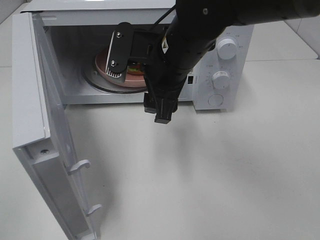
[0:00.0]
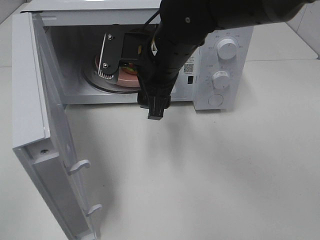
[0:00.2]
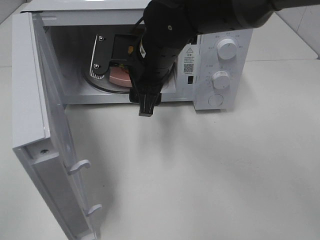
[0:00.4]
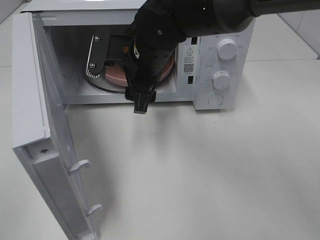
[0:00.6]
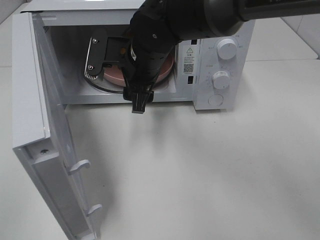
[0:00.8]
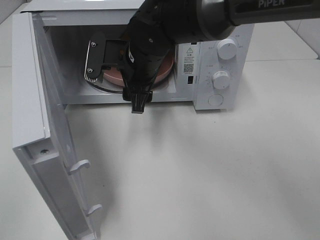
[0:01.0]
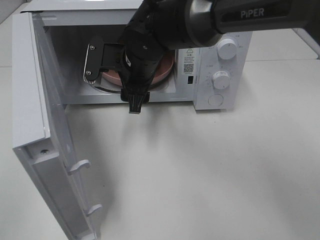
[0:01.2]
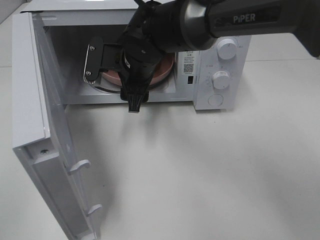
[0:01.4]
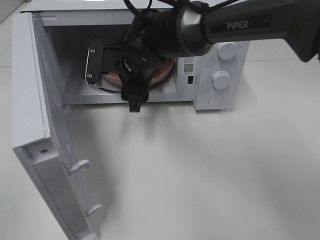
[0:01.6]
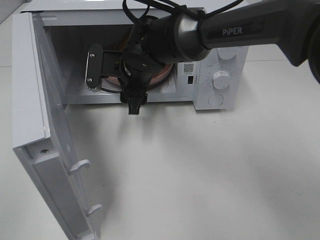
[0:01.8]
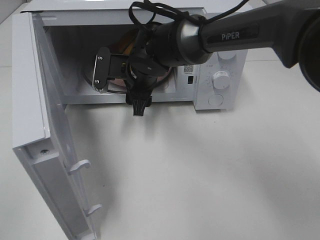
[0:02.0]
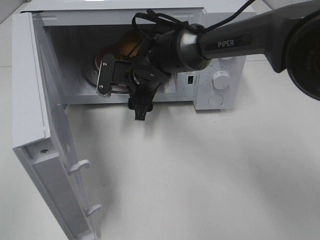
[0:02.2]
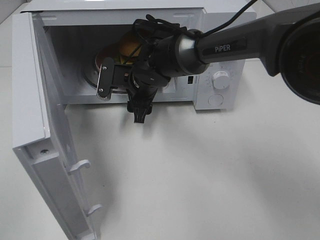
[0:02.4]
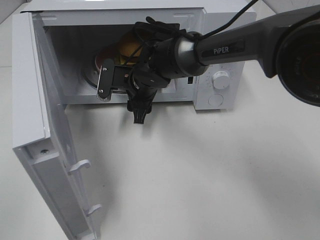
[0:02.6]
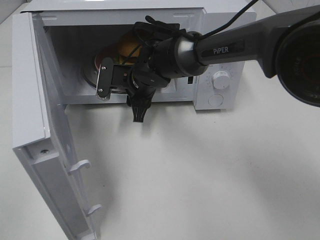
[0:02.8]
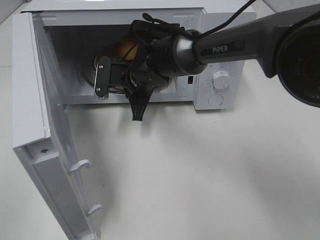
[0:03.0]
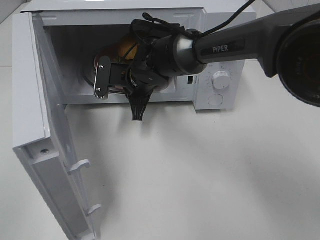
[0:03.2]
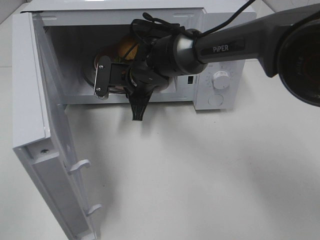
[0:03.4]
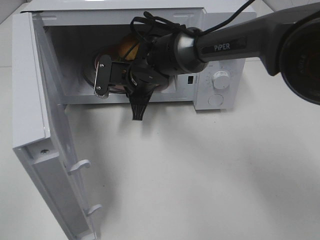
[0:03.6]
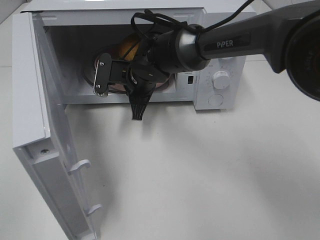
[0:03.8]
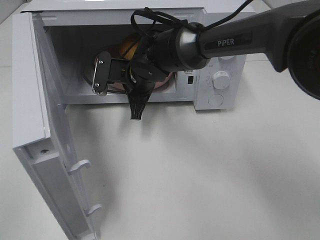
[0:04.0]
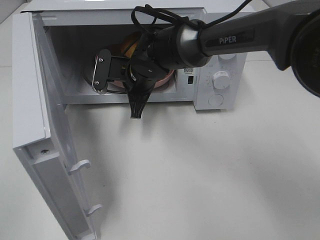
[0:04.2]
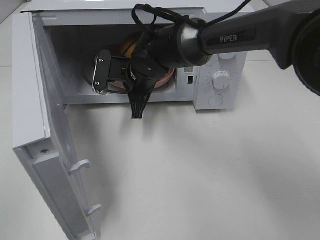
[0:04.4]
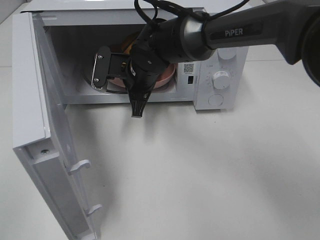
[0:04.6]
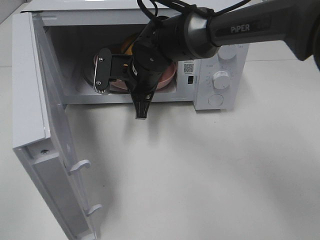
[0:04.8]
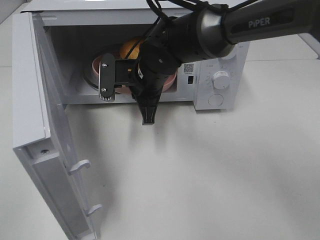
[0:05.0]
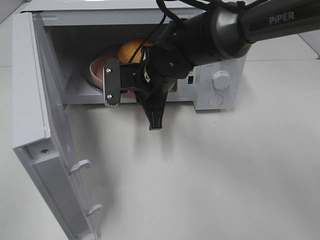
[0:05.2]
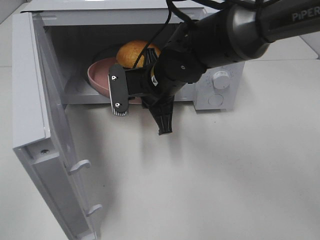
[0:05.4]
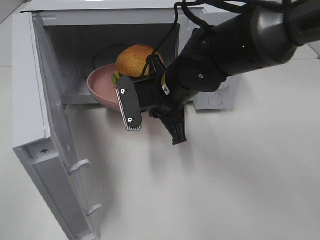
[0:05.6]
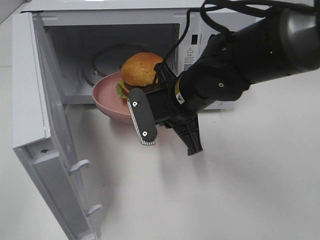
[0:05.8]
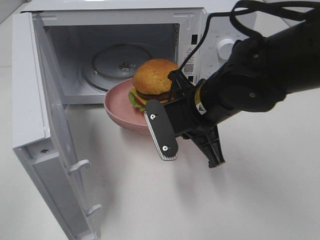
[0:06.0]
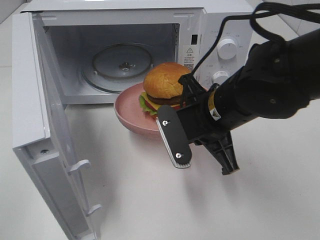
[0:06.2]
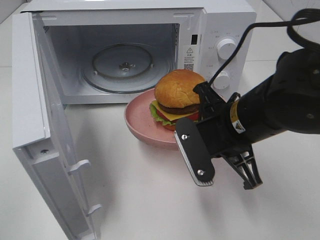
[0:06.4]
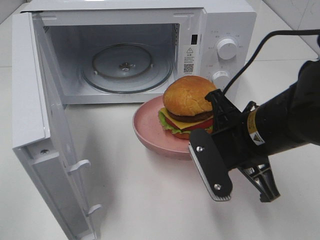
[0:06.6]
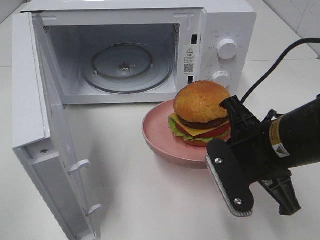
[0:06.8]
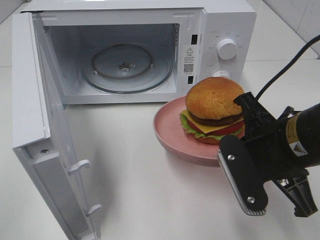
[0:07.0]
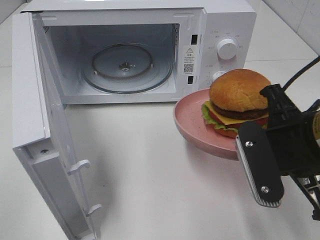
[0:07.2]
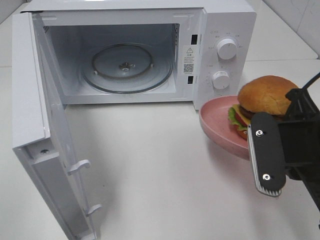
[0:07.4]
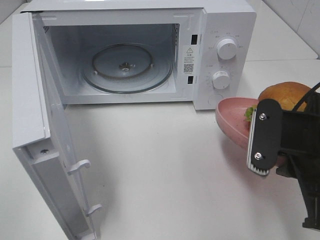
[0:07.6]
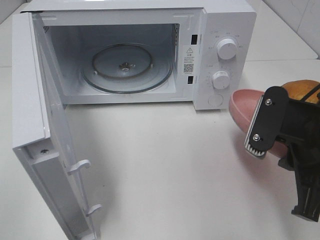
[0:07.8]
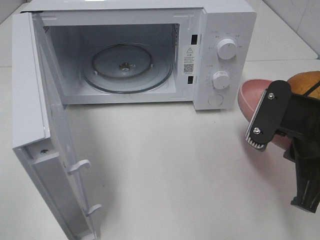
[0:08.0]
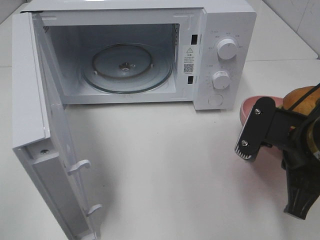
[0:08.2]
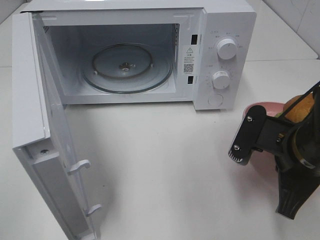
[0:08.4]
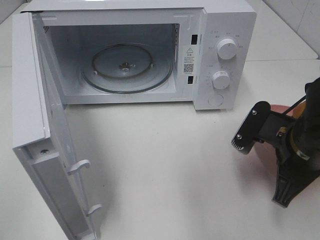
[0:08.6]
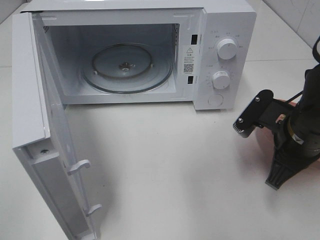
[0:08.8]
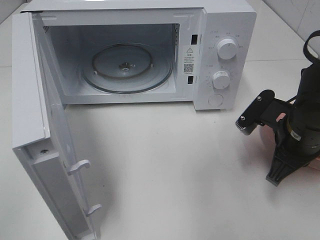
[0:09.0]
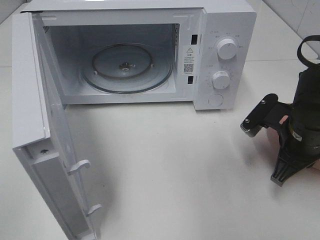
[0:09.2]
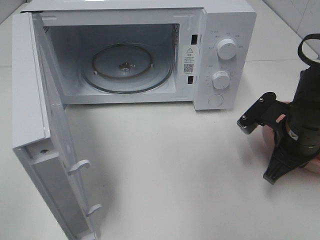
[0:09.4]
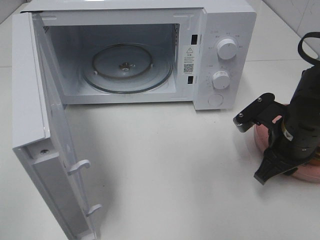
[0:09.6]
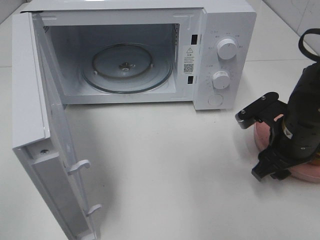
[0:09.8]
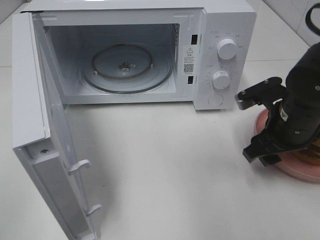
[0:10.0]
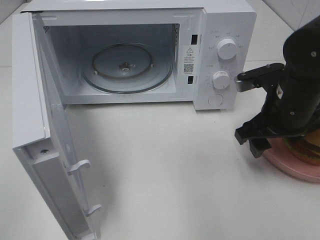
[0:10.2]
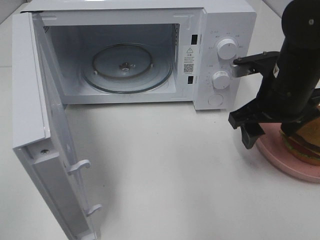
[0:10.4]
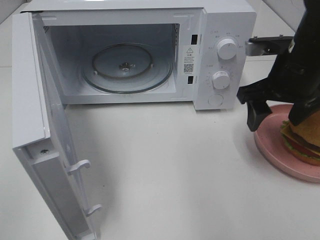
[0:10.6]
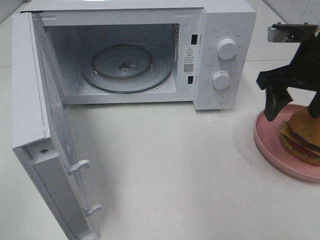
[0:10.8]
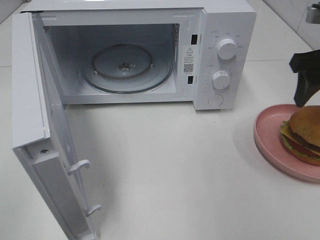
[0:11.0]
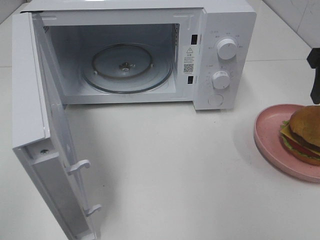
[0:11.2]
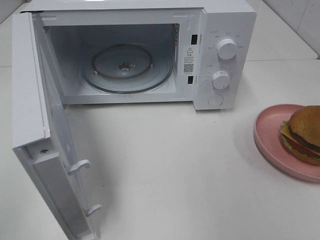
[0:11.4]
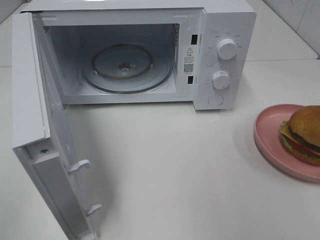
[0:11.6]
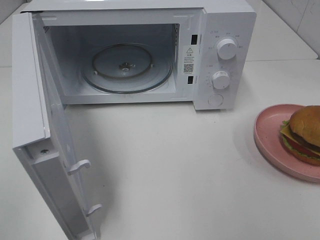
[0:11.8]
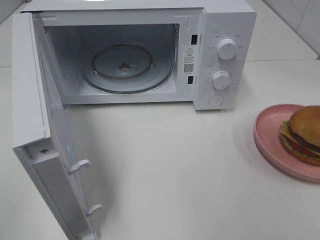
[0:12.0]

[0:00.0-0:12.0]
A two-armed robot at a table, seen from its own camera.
Task of the whole recording: Heat the burger.
Step, 0:00.0 to 0:03.8: Right hand: grab the plate with the hamburger.
Step, 0:04.0 to 0:09.6: Right hand: place the plate on the table.
0:00.0 to 0:01.6: The right gripper heads forward, to the left and downward, covering some 10 cm.
0:01.6 to 0:03.0: The right gripper shifts roughly 5 cm downward, and closes its fingers.
0:03.0 to 0:04.4: There are only small adjustments of the grippers.
0:04.4 to 0:06.0: The right gripper heads backward and to the right, covering approximately 15 cm.
0:06.0 to 0:07.6: The right gripper is displaced to the right and backward by approximately 15 cm.
0:07.6 to 0:09.0: The right gripper shifts about 10 cm forward and downward.
0:09.0 to 0:10.4: The right gripper moves upward, approximately 5 cm, and opens up.
0:10.4 to 0:12.0: The right gripper shifts some 25 cm backward, to the right and upward.

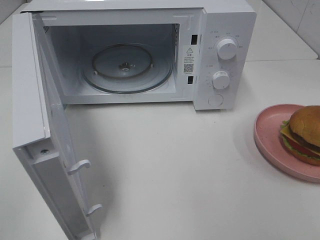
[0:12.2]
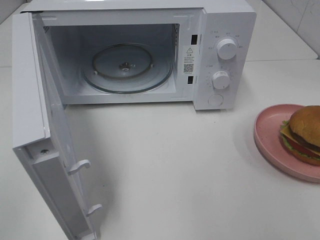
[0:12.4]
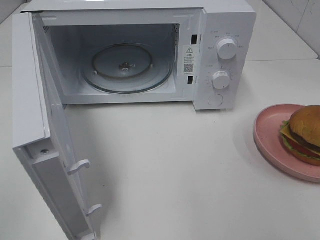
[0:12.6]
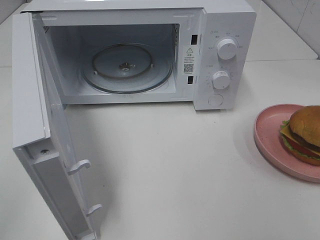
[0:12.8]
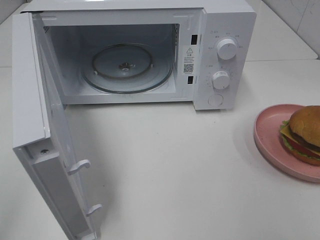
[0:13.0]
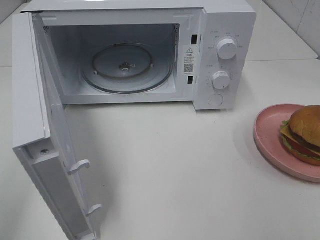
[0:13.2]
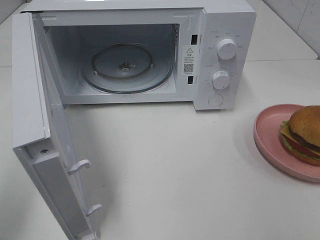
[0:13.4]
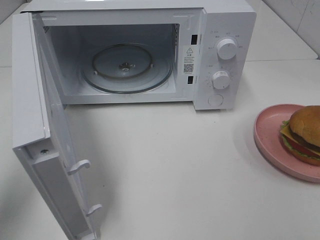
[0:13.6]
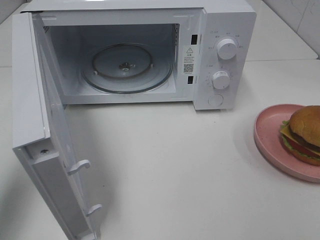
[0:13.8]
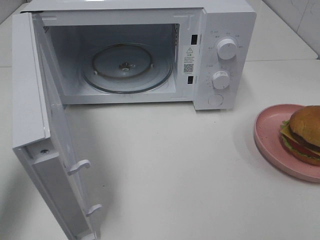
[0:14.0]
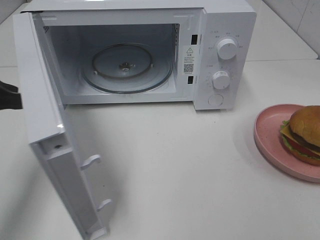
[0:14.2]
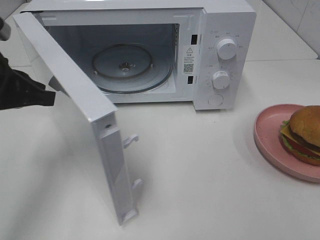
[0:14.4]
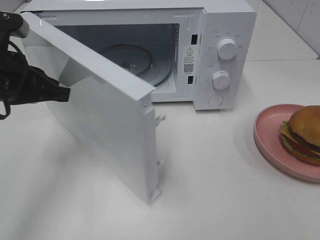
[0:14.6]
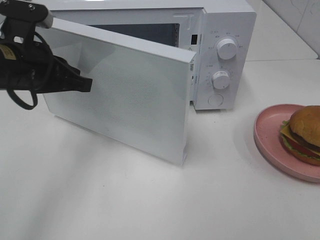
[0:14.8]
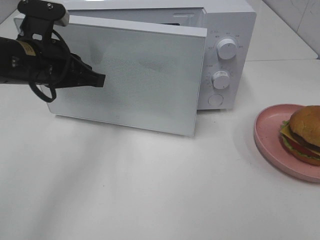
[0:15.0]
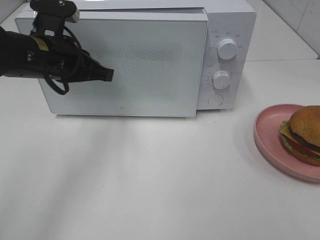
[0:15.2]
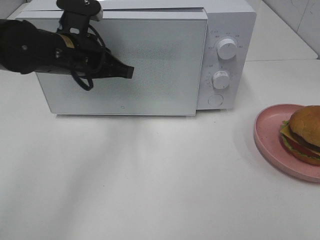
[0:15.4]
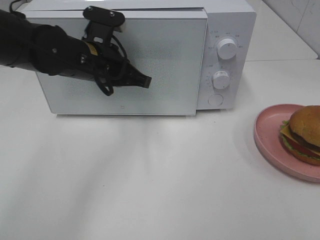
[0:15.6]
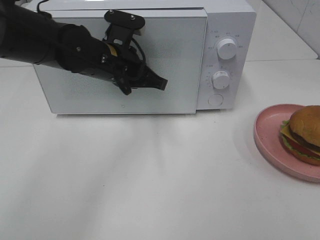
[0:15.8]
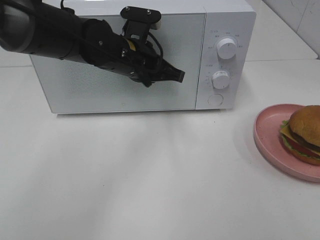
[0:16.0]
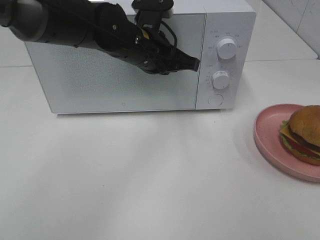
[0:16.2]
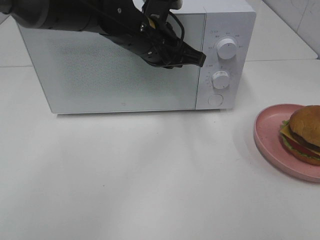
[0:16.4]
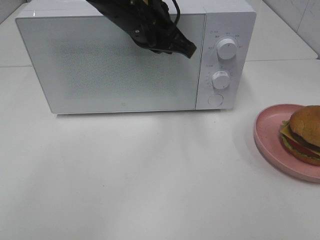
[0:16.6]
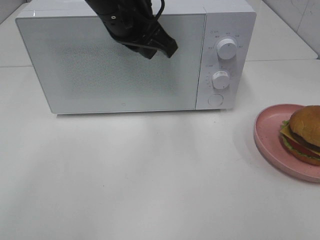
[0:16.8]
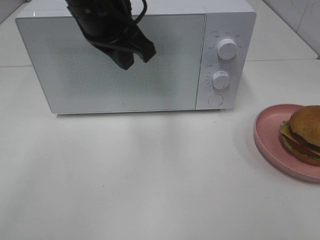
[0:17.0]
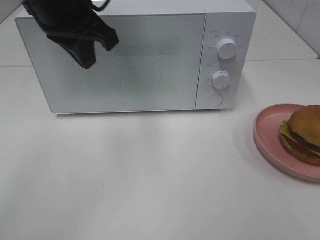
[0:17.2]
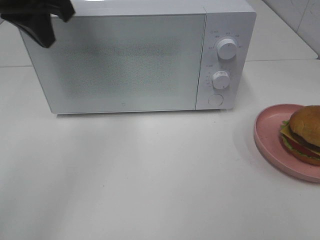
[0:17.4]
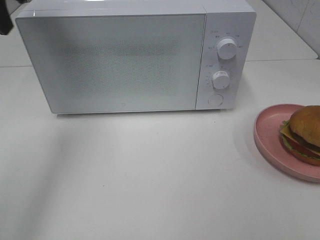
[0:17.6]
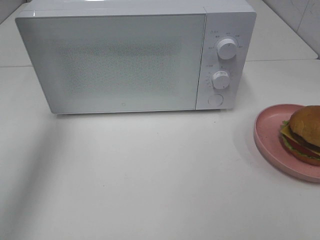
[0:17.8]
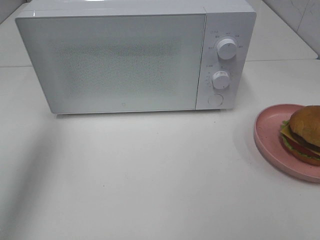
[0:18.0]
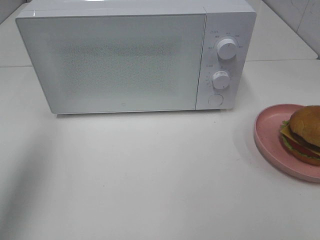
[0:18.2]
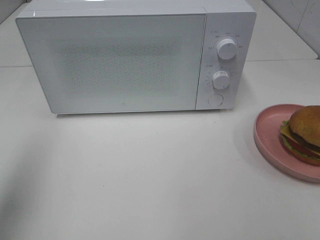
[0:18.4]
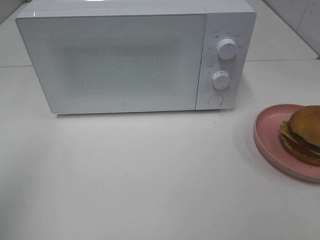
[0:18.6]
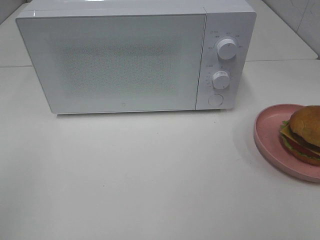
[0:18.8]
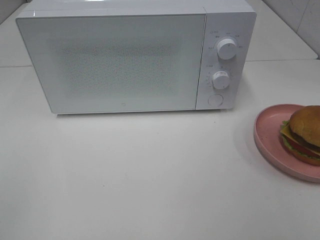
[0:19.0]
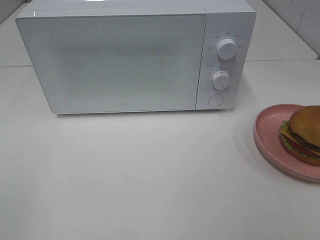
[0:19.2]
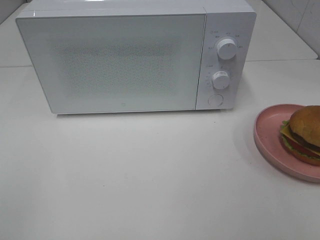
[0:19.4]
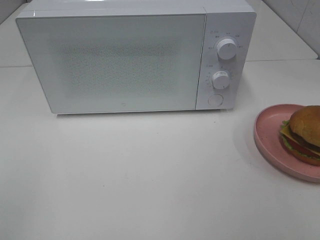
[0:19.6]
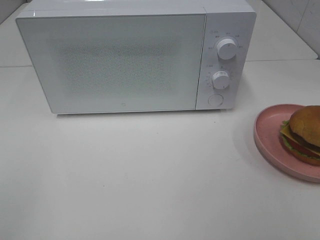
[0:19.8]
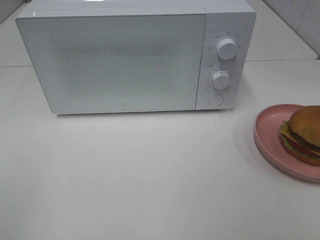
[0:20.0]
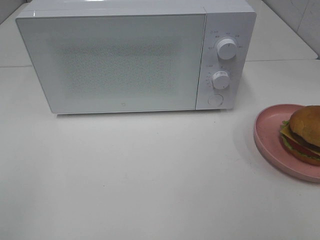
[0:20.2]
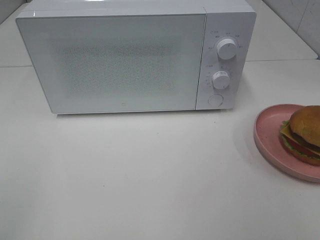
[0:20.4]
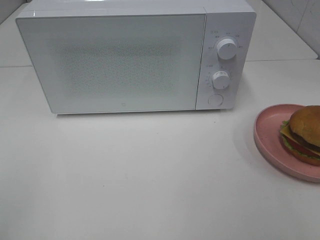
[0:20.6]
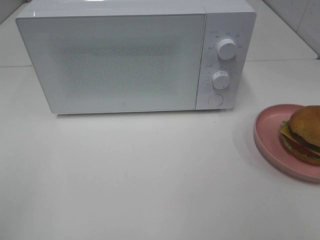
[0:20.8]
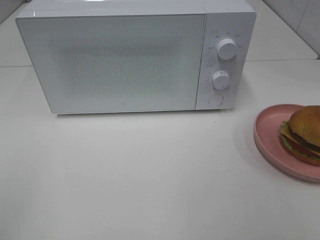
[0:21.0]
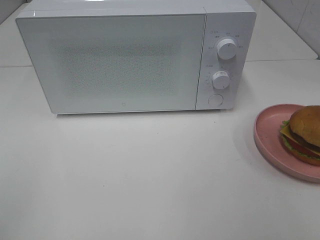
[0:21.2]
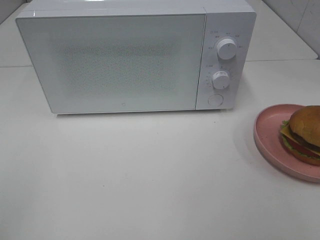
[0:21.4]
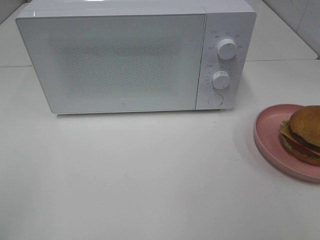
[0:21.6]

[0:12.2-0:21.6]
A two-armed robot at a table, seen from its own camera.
Task of the whole recording: Heat the burger.
Step, 0:12.2 to 0:16.4: Left hand: close the microwave door.
0:12.2 to 0:13.8: The left gripper travels forward by roughly 20 cm.
0:13.8 to 0:15.4: The left gripper is displaced to the right and forward by approximately 25 cm.
0:15.4 to 0:17.0: The left gripper shifts about 10 cm upward and to the right.
0:17.0 to 0:18.4: The left gripper goes approximately 30 cm to the left and backward.
0:18.4 to 0:20.0: The left gripper goes roughly 20 cm backward and downward.

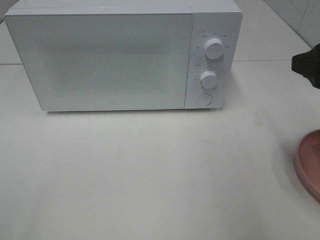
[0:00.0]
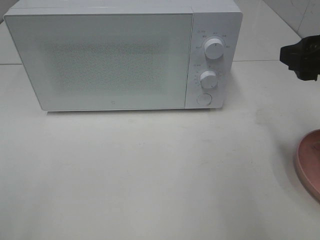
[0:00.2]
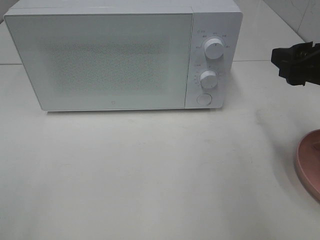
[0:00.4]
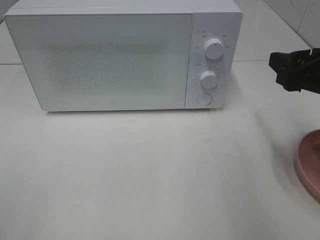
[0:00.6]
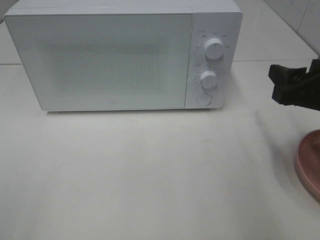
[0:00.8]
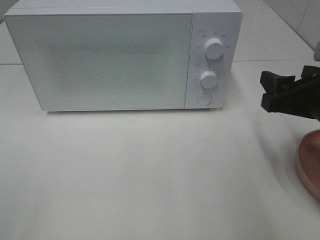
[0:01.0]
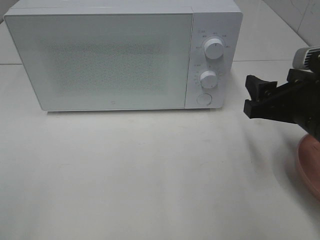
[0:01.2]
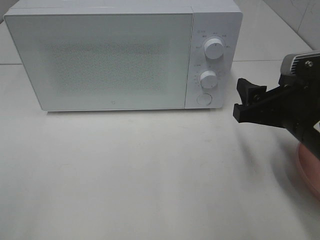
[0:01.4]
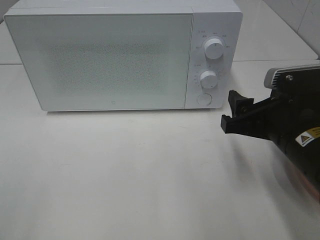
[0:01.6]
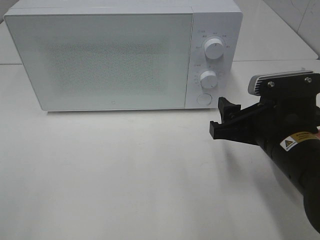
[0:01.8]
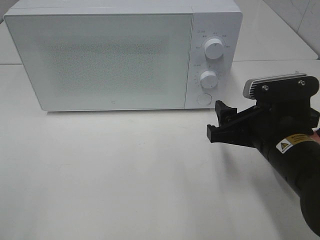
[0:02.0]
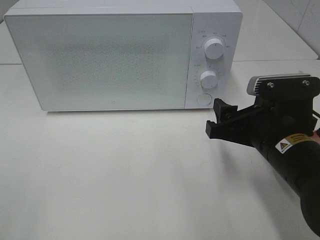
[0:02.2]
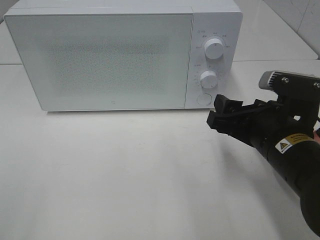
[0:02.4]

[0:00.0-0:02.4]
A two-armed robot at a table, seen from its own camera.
Task of the whole recording: Heat the burger.
0:00.0 to 0:01.2: The right gripper travels downward by roughly 10 cm.
0:01.2 to 0:02.4: The right gripper ends up approximately 5 cm from where it was.
